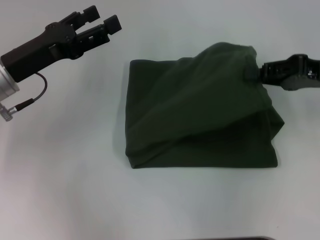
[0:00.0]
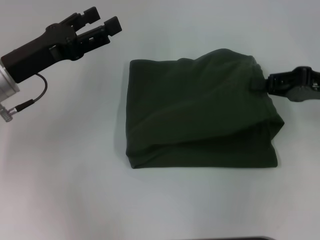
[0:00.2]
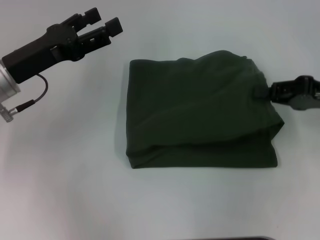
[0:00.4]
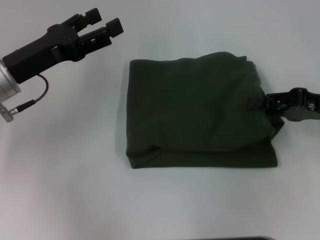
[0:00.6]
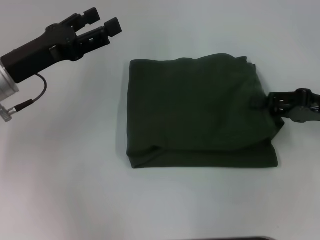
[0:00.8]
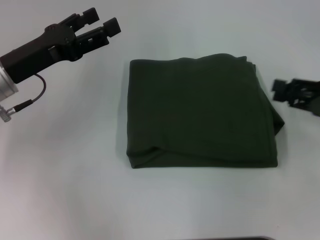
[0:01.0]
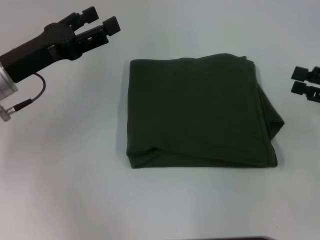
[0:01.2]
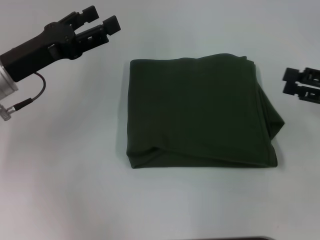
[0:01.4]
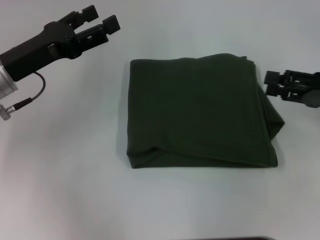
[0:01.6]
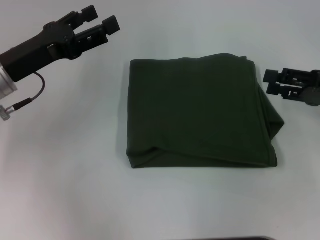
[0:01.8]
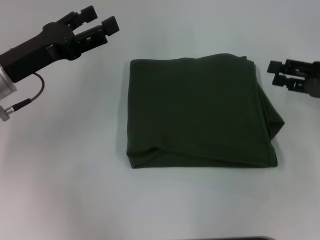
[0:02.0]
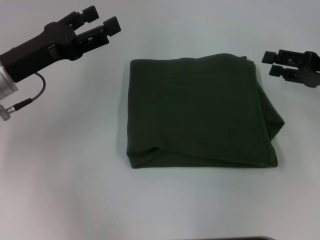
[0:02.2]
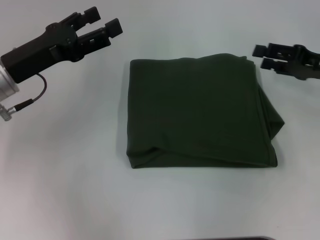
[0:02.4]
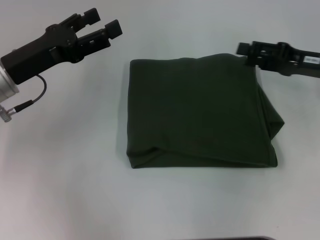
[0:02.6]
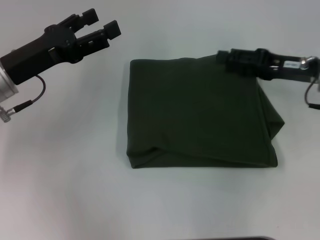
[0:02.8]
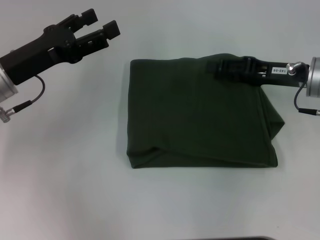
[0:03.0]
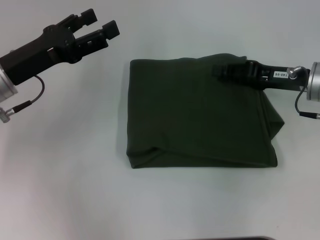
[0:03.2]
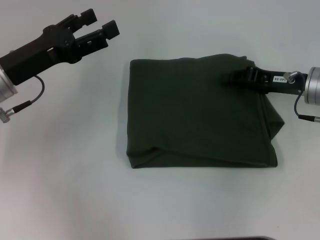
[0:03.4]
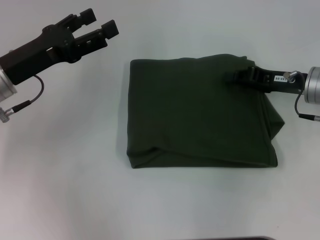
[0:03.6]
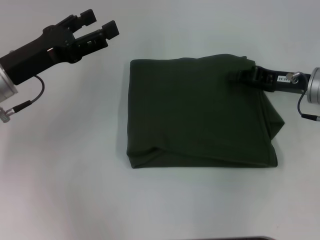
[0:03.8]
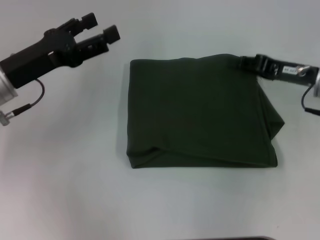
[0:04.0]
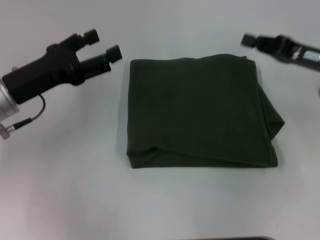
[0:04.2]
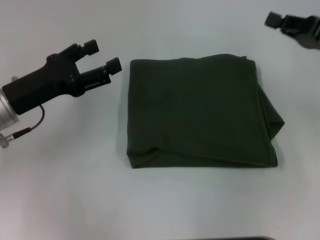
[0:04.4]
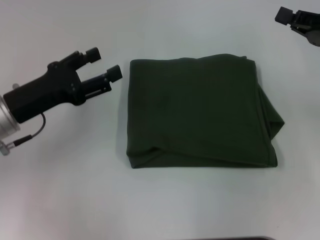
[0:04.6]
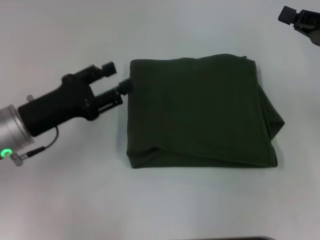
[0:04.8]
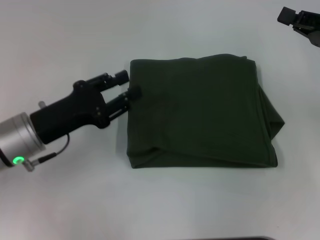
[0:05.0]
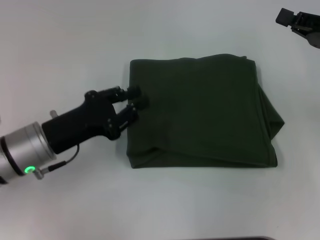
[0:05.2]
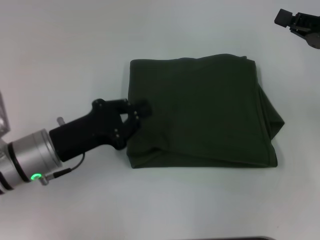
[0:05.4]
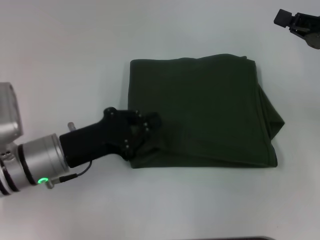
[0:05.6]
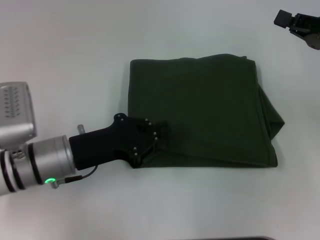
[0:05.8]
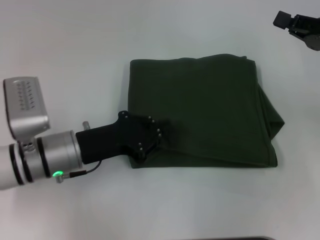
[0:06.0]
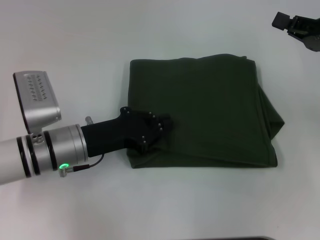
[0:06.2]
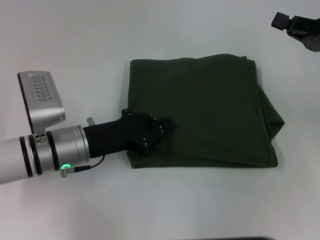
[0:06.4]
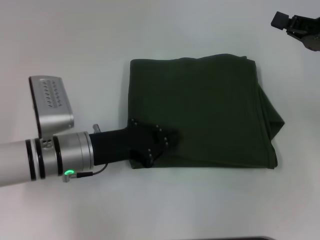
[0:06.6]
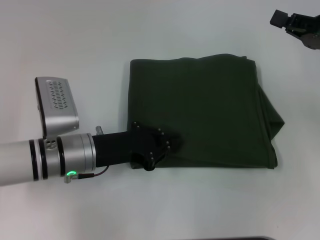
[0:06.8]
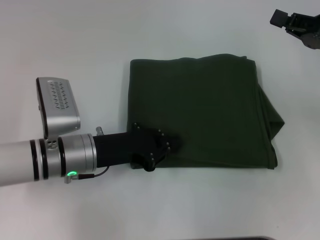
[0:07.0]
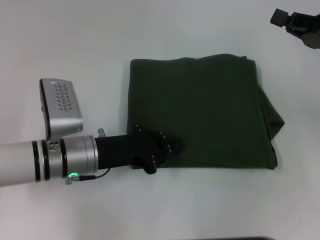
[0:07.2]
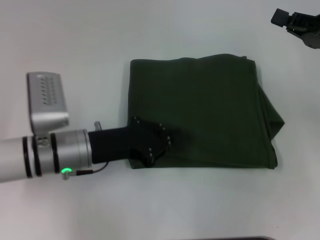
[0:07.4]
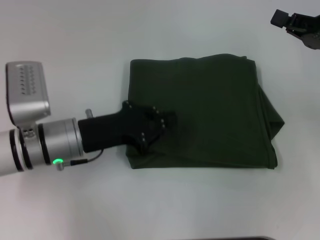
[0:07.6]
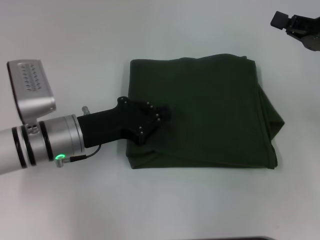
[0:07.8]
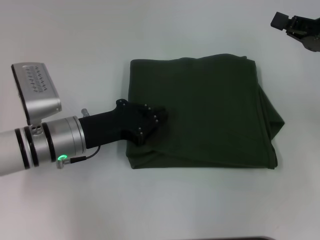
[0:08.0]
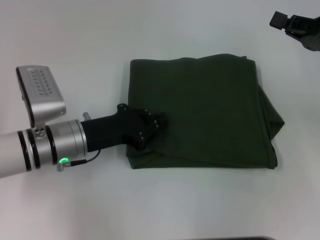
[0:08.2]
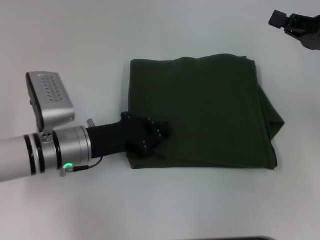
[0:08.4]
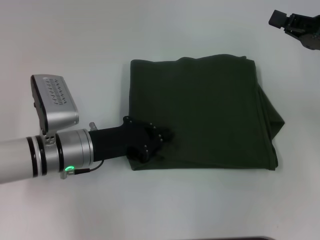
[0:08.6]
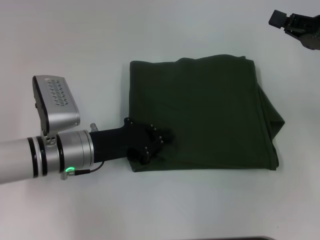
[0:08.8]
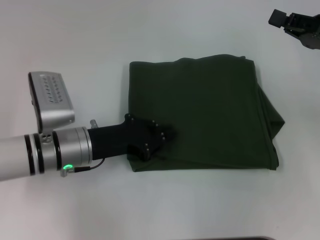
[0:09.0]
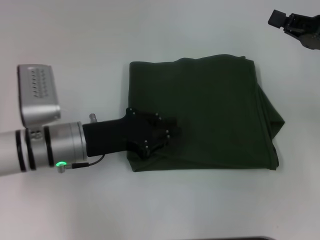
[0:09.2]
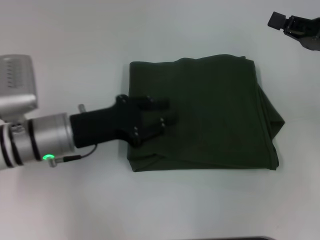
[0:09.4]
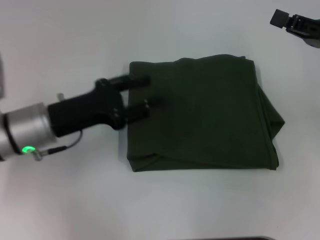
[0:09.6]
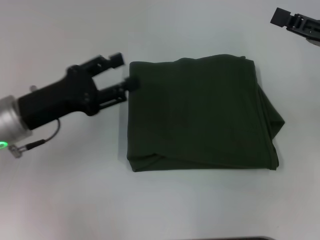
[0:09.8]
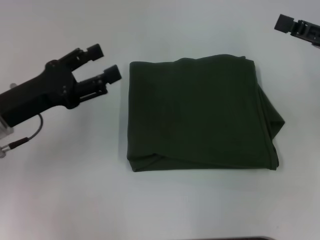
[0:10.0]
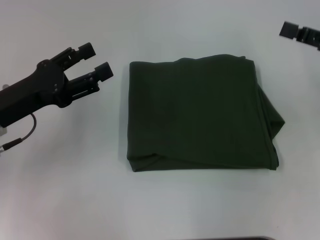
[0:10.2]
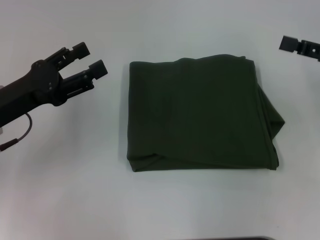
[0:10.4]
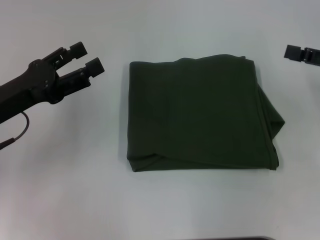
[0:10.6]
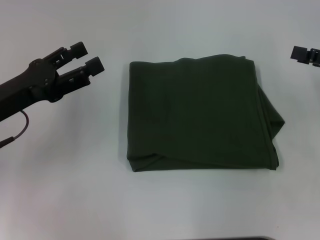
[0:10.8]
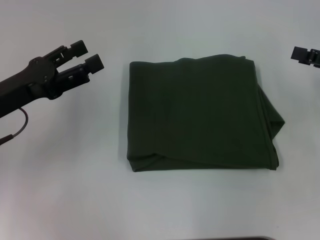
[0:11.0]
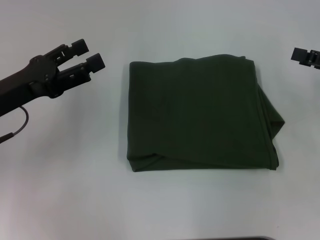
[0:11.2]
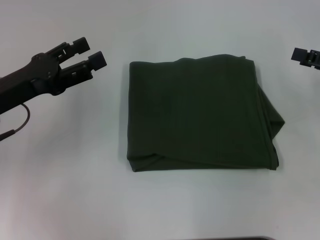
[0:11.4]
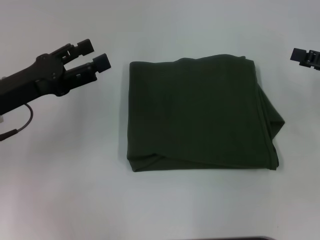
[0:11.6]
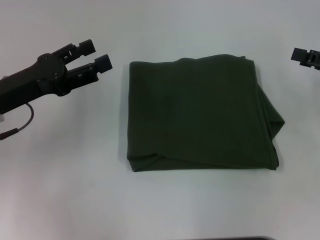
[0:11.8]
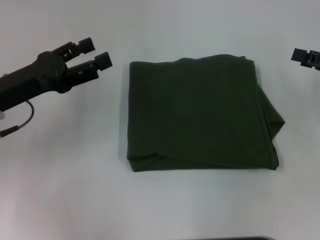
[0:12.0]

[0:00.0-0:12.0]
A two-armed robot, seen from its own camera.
0:00.0 to 0:01.6: The right gripper opens up.
0:01.6 to 0:03.0: The right gripper is displaced to the left and forward by roughly 10 cm.
0:03.0 to 0:04.4: The right gripper heads to the right, covering roughly 5 cm, and closes.
0:04.4 to 0:06.0: The left gripper shifts approximately 10 cm to the right and downward, and closes up.
0:06.0 to 0:09.0: The grippers move only a little.
0:09.0 to 0:10.4: The left gripper is displaced to the left and upward by about 10 cm, and opens up. Meanwhile the right gripper opens its fingers.
0:10.4 to 0:12.0: There are only small adjustments of the grippers.

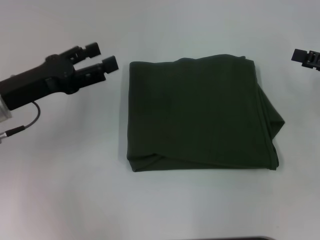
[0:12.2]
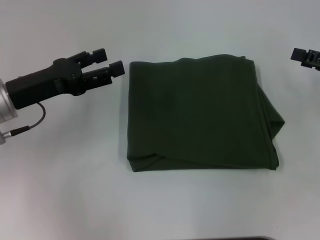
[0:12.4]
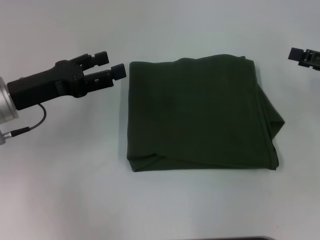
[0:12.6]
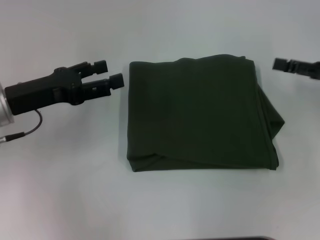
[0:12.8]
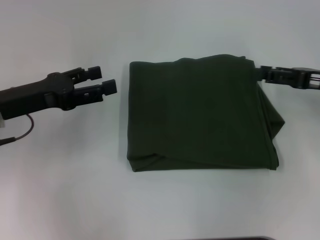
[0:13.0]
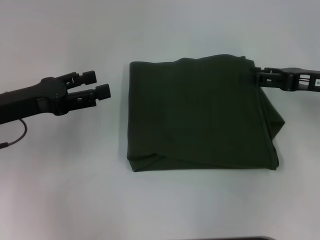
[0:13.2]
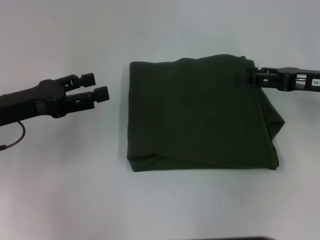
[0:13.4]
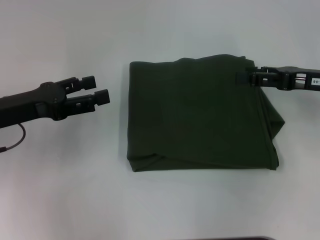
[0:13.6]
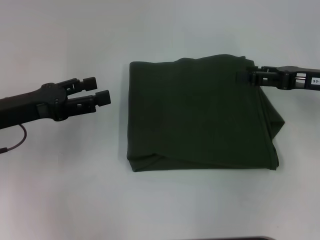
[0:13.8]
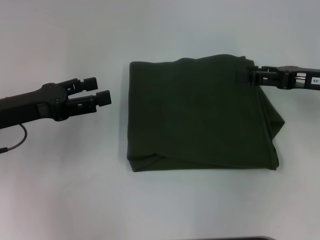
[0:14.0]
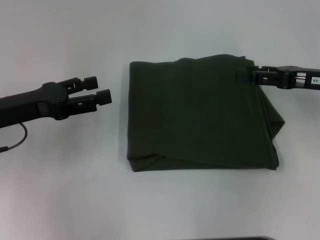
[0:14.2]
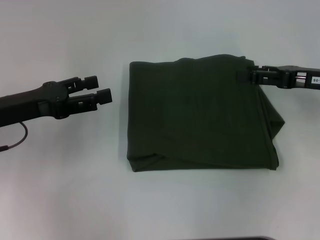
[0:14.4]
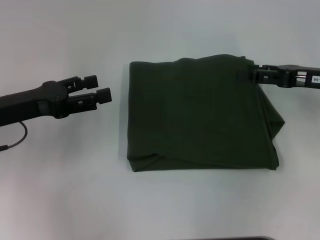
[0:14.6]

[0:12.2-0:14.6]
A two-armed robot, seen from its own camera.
0:12.2 to 0:13.4: The right gripper is displaced to the left by about 5 cm.
0:13.4 to 0:14.6: Both grippers stay about where they are.
